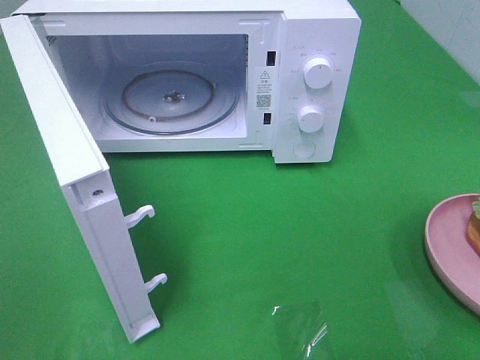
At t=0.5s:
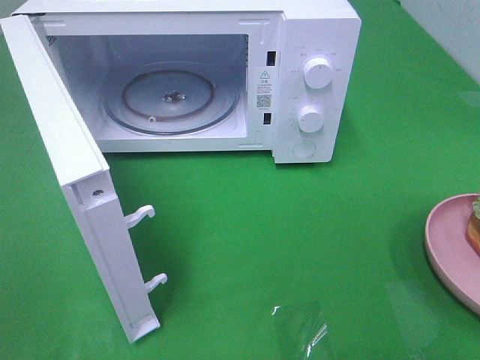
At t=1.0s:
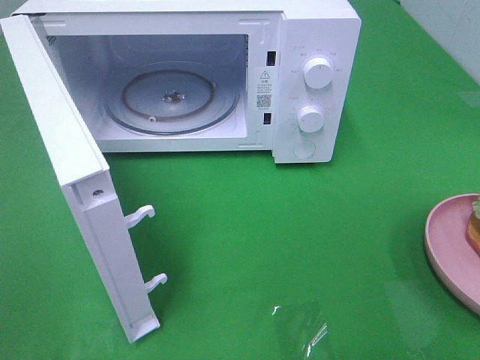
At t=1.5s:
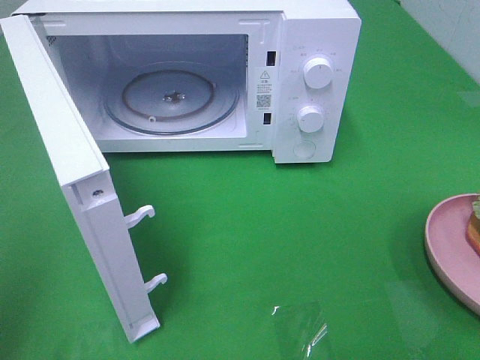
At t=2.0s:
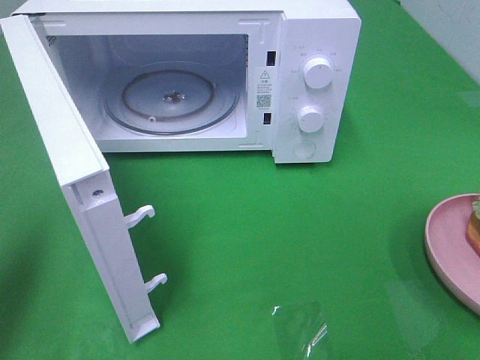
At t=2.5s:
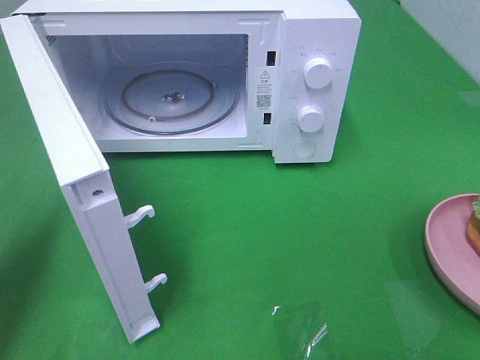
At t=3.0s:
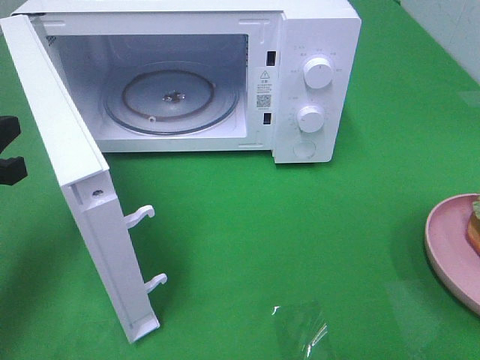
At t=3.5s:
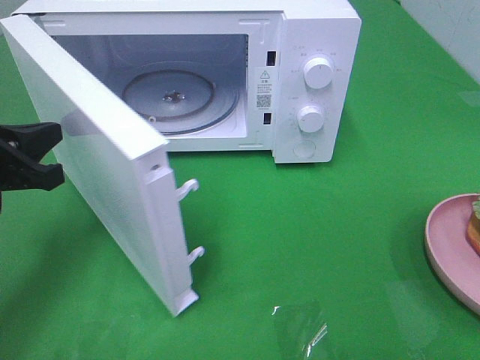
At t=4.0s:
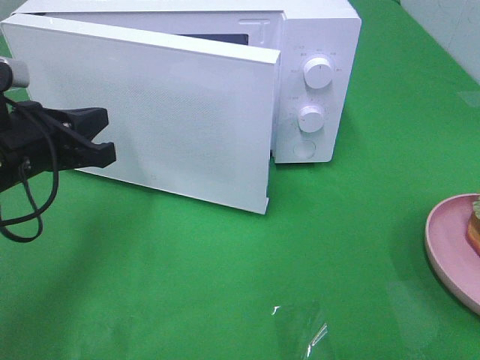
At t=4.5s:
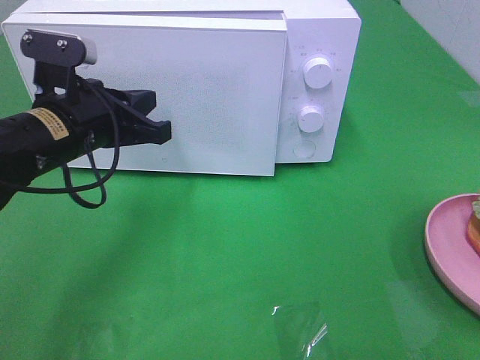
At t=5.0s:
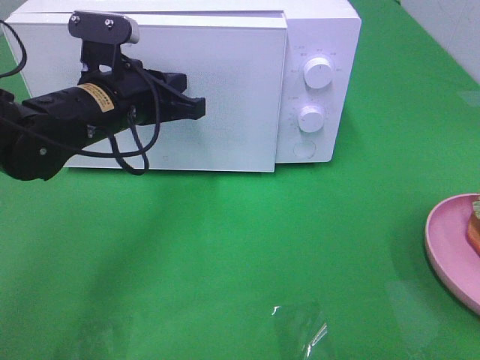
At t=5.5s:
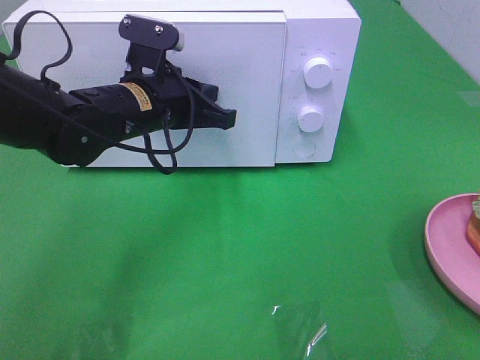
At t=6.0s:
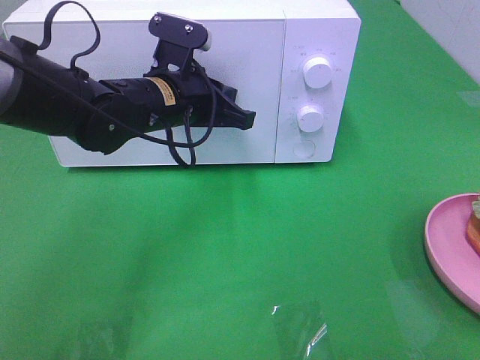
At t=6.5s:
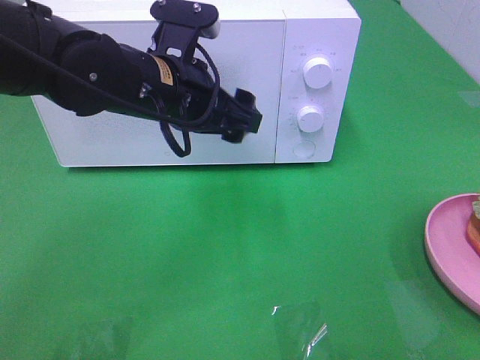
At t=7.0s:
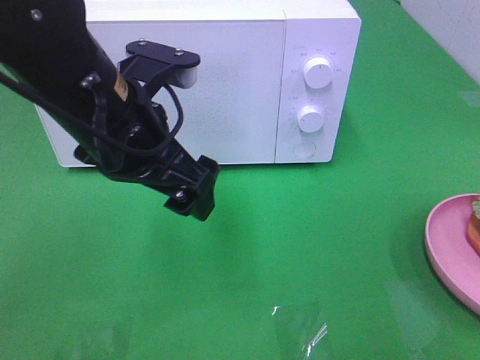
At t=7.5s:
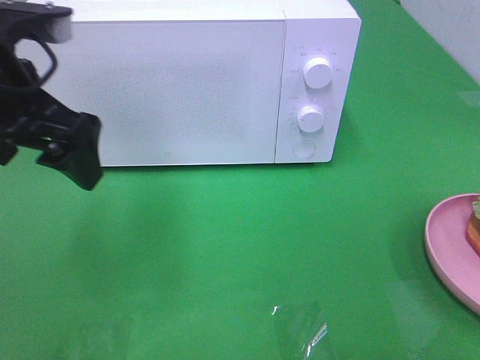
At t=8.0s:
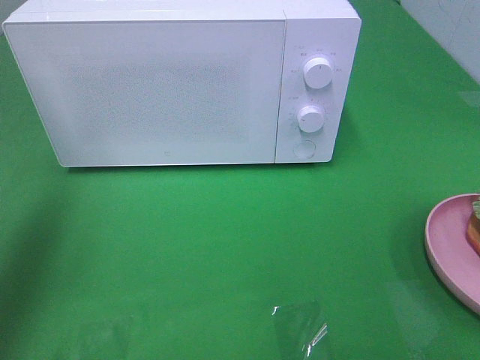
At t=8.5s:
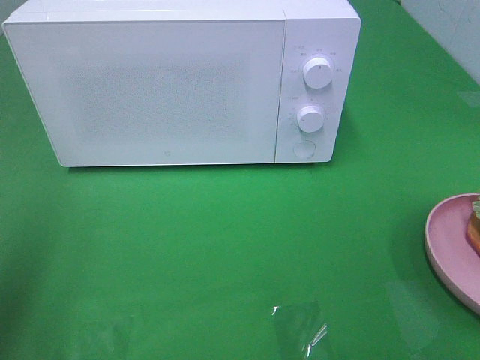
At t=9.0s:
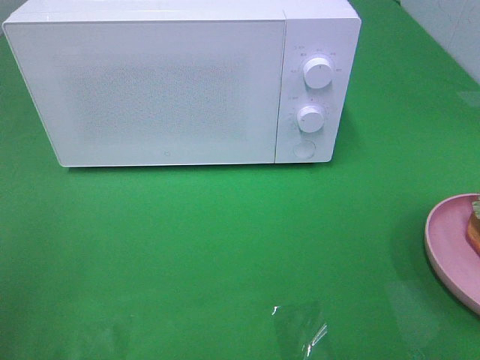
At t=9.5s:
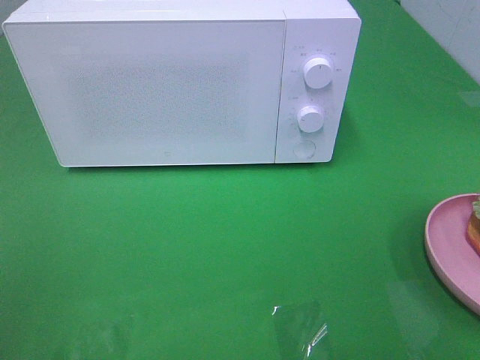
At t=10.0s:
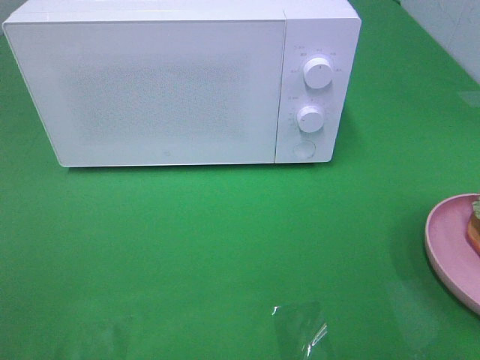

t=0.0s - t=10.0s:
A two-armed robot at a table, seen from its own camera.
Task of the whole recording: Heat the burger.
Step, t=0.0s - t=6.0s: Left hand: close the microwave door.
t=0.0s - t=2.0s: The left gripper shifts some 15 cm forward, and closes.
t=2.0s - t=4.0s: The left gripper shifts about 20 cm forward, to the right and downward.
t=4.0s - t=6.0s: The left gripper shifts some 15 cm to the right and forward.
t=6.0s - t=8.0s: The left gripper is displaced to the left, upward and backward by approximately 30 cm, and opens.
t=8.0s - t=10.0s: The left gripper is displaced backward by about 25 cm.

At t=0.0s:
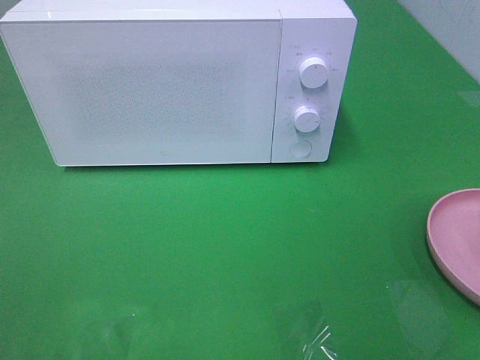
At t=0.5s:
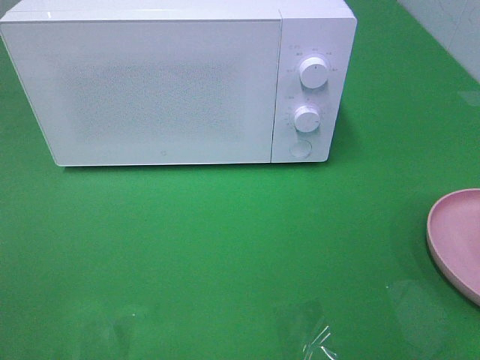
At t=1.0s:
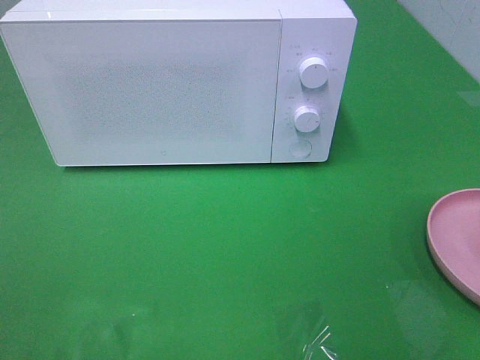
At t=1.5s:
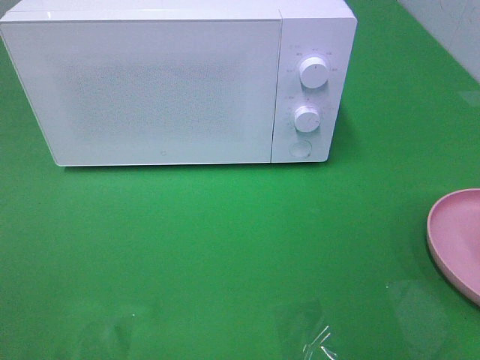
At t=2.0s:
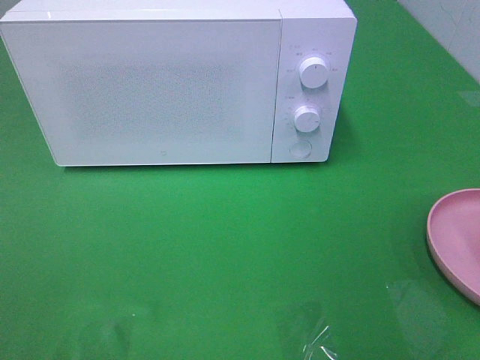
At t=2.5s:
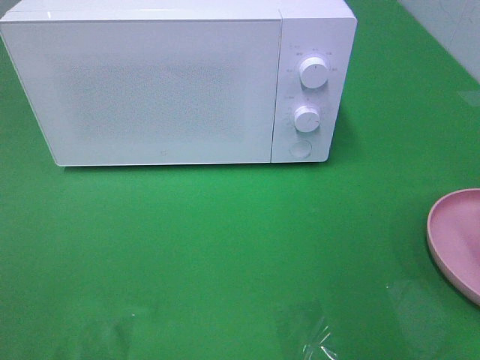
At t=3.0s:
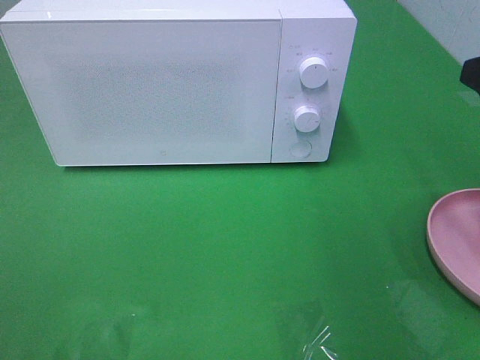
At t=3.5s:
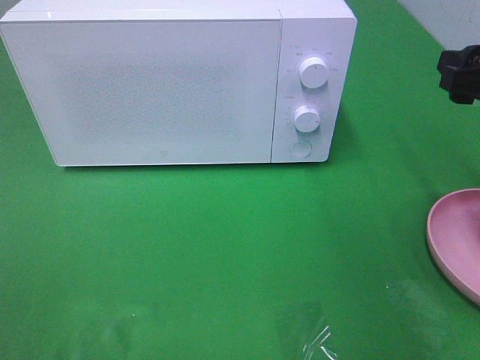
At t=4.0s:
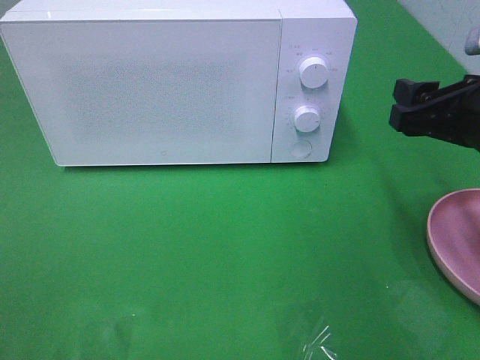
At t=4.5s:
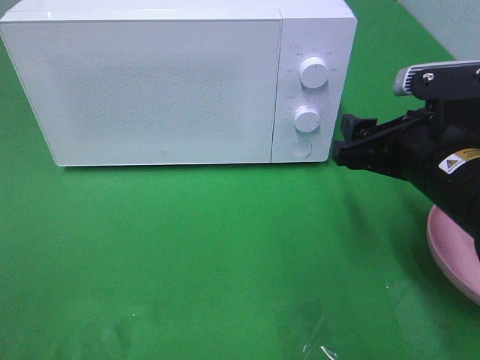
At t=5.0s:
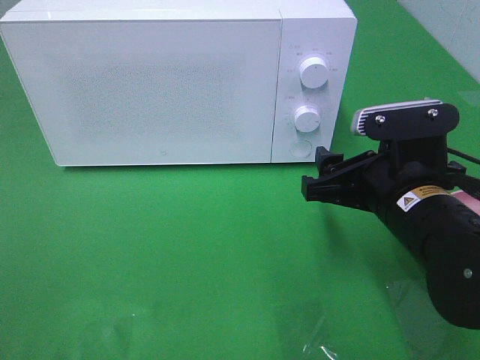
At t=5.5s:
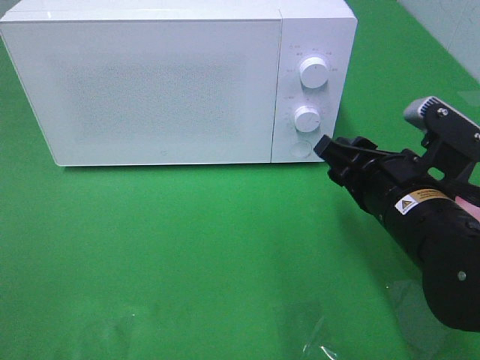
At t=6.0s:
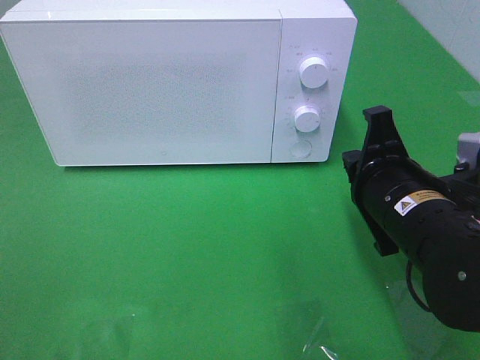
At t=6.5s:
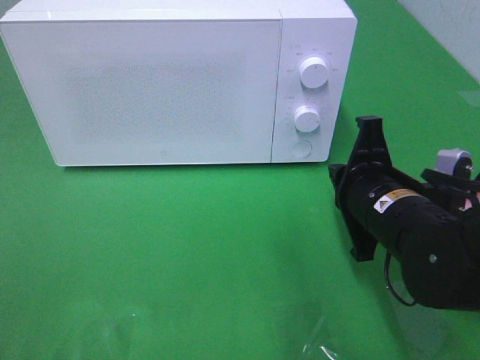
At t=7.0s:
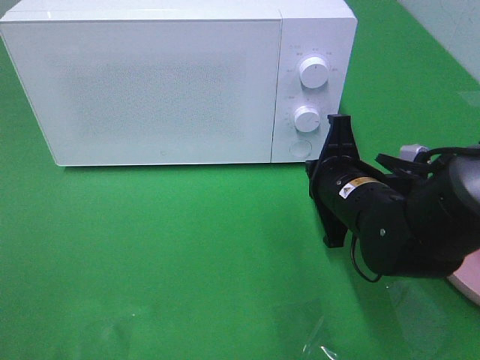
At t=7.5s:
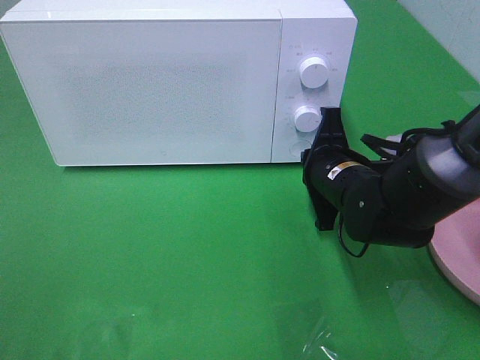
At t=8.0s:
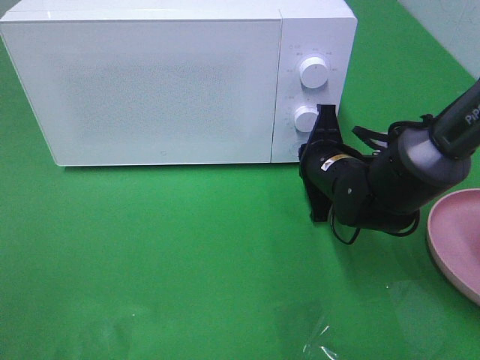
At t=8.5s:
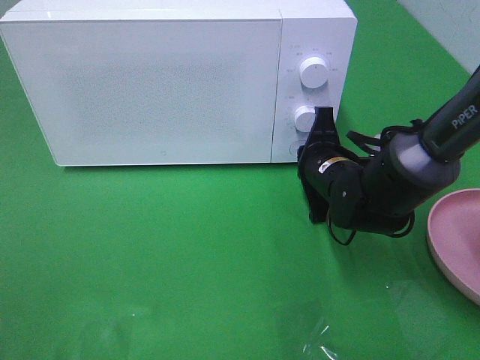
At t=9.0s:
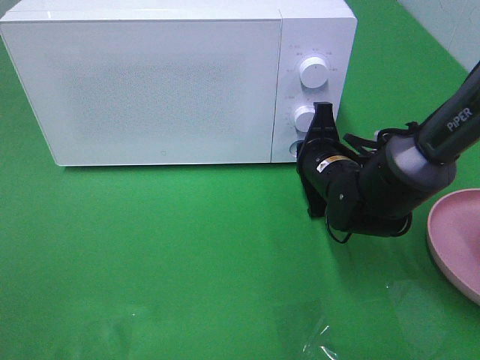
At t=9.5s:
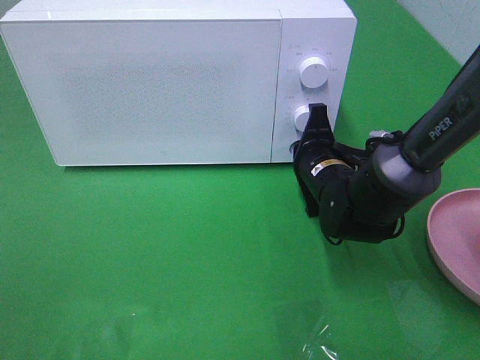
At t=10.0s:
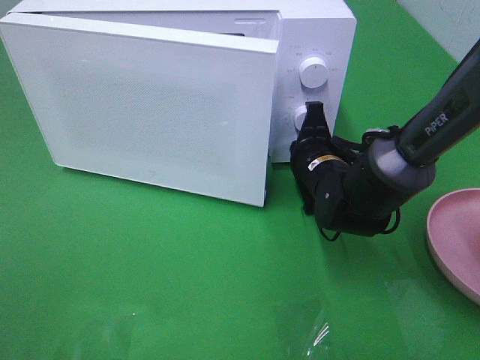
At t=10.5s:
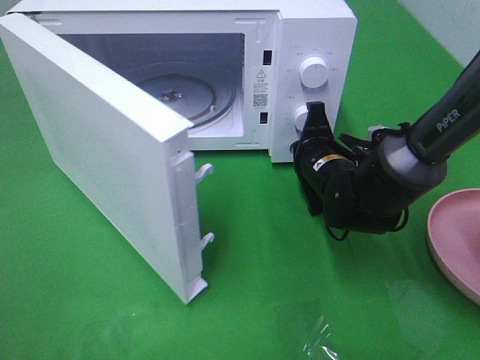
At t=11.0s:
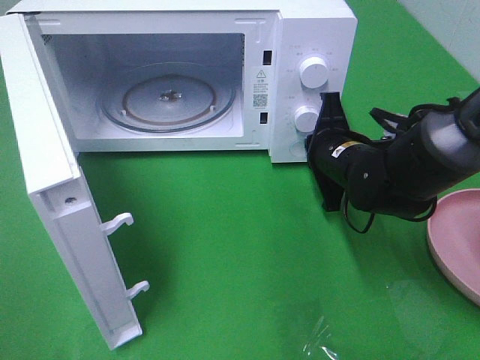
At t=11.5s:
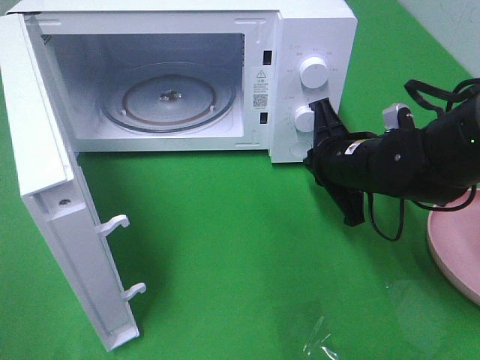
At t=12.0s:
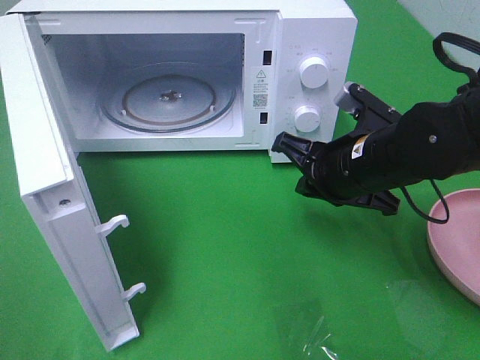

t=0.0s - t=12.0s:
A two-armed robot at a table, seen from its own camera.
Task of the whole recording: Heat the burger.
Step, t=0.0s - t=11.5s: Right hand: press the switch.
t=2.0s - t=4.0s: The right gripper shifts approximately 20 cm forward and downward.
t=4.0s - t=6.0s: The right gripper travels to the left and downward by about 10 cm, and closes its fingers.
t=6.0s - t=8.0s: The right gripper goes approximately 15 cm forward and downward.
t=8.0s - t=10.0s: The grippers stay close to where they were, moving slightly.
t=10.0s - t=12.0s: The right gripper moves upward and backward, about 10 cm.

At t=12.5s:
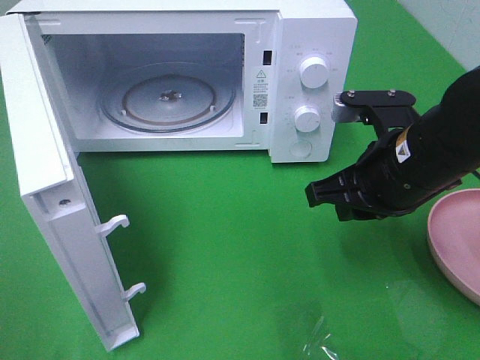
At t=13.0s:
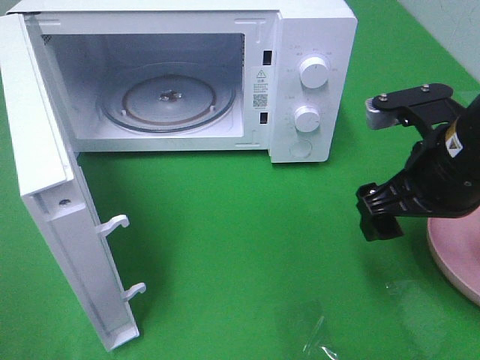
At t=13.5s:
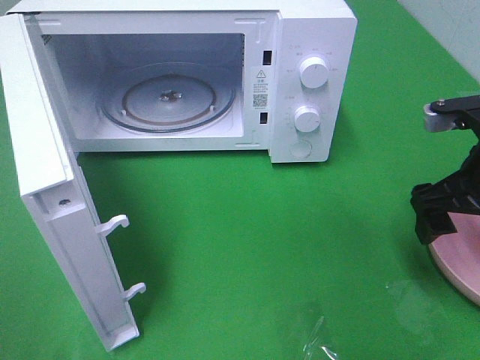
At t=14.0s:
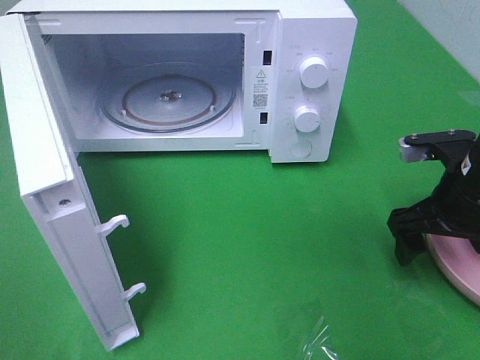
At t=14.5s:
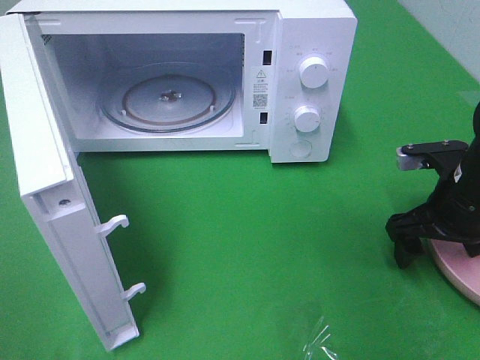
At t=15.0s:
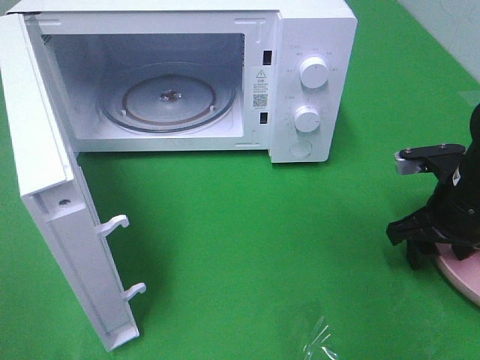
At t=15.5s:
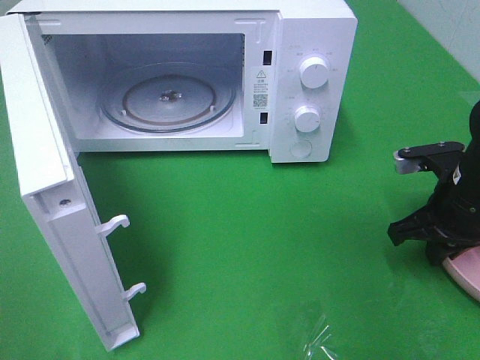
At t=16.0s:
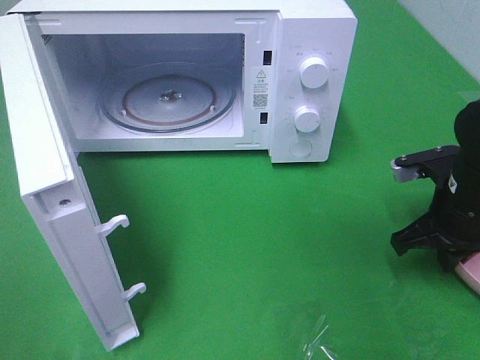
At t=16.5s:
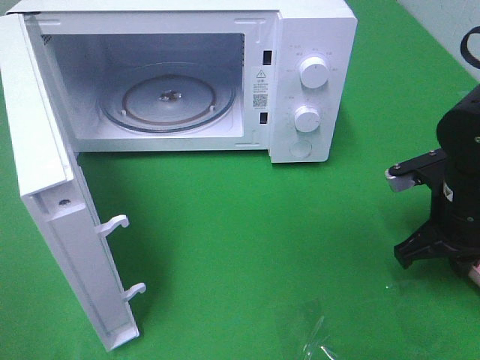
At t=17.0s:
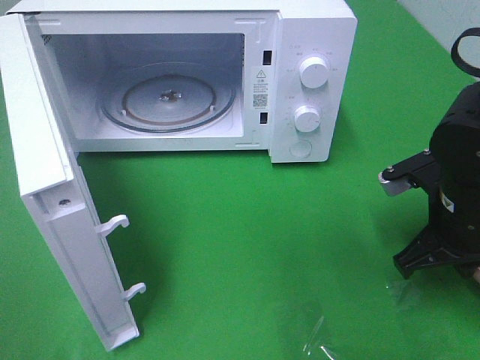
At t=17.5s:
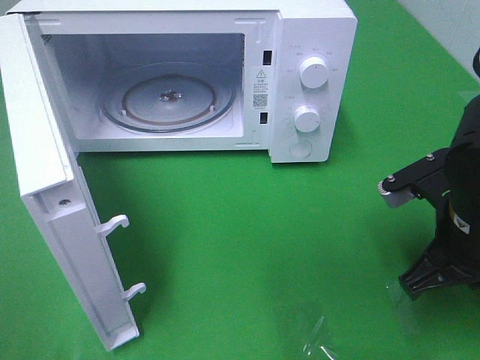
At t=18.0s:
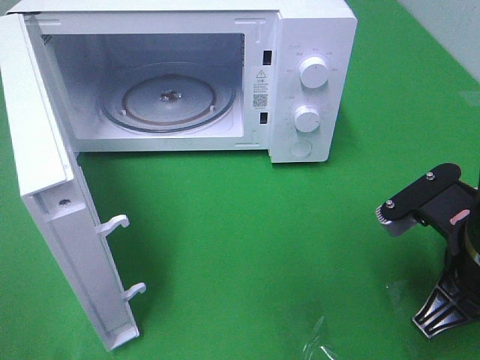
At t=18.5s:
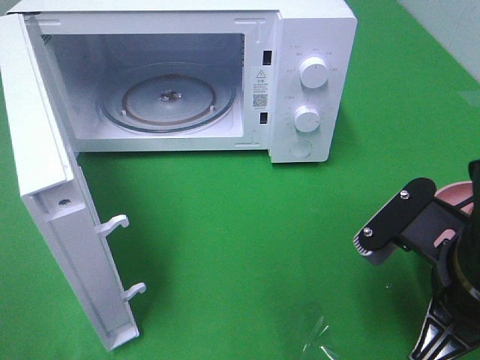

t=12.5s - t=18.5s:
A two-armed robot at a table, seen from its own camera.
Task of the whole recording: Heat the burger.
Step, t=12.5s - t=17.0s: Right hand: grab the plate with the hamburger.
t=12.5s - t=14.5s: The right gripper moves to the right and downward, some 10 cm, and opens.
t=14.5s - t=16.5s: The right gripper closes.
t=16.5s - t=18.5s: The right gripper travels backward and to the left by roughly 15 cm.
